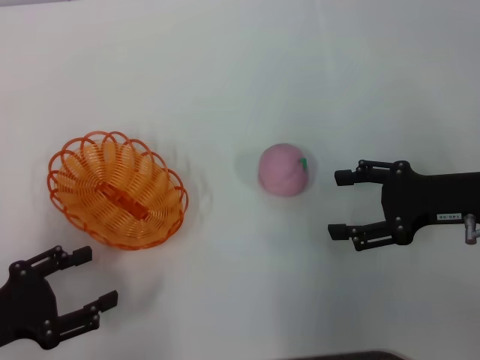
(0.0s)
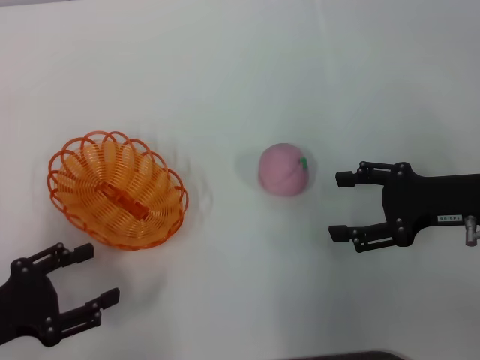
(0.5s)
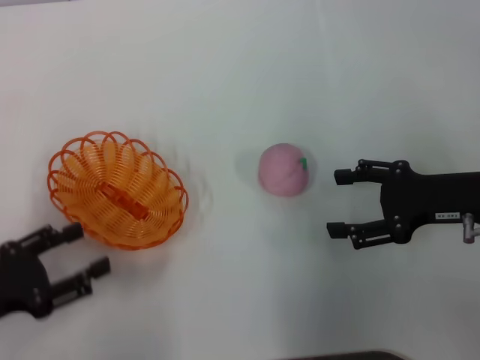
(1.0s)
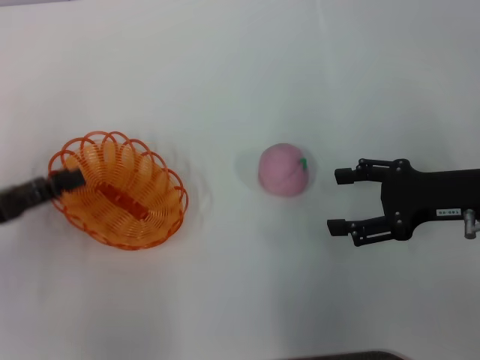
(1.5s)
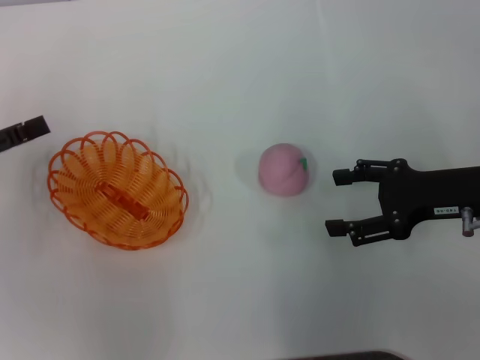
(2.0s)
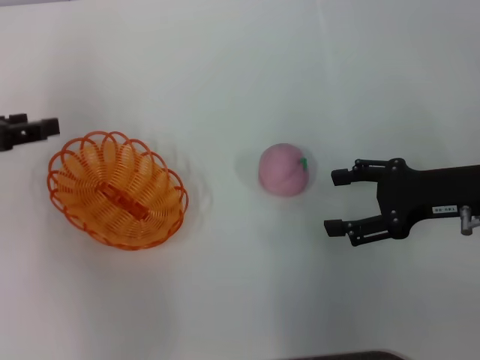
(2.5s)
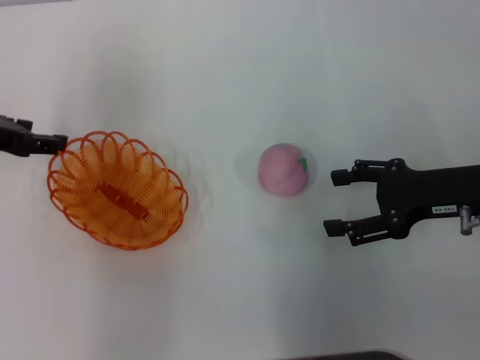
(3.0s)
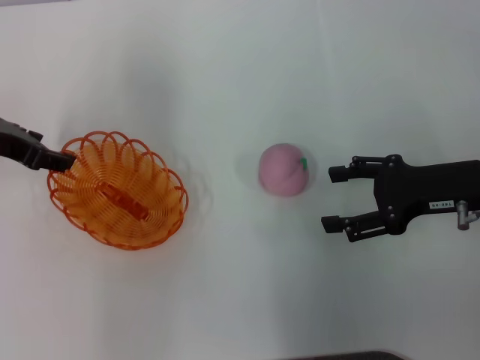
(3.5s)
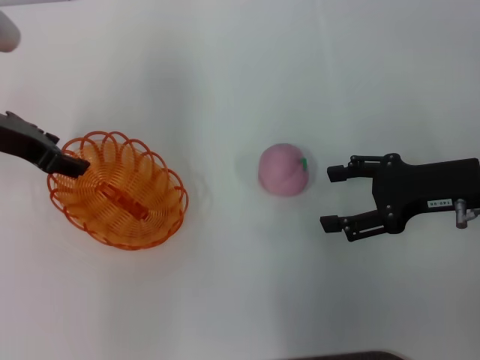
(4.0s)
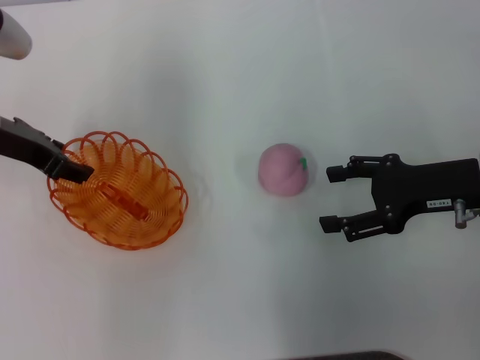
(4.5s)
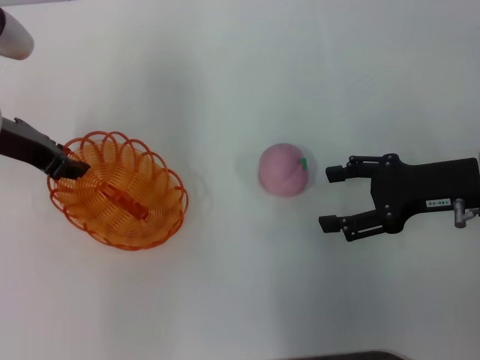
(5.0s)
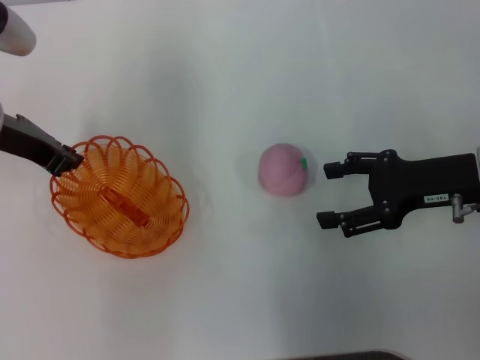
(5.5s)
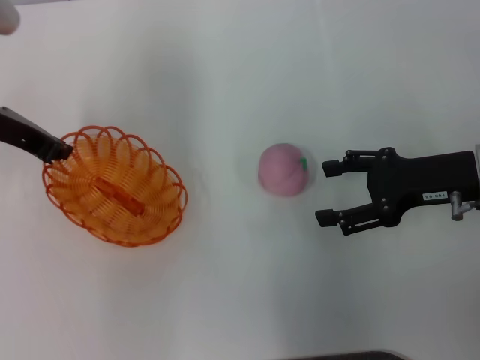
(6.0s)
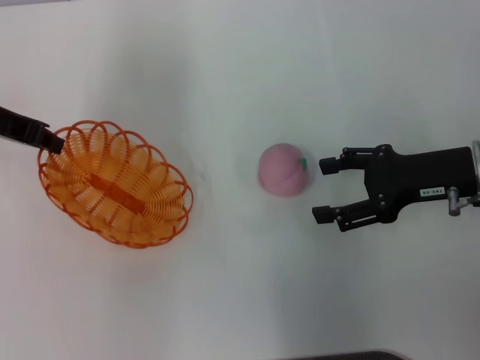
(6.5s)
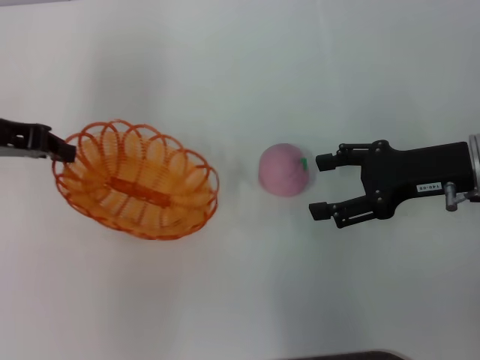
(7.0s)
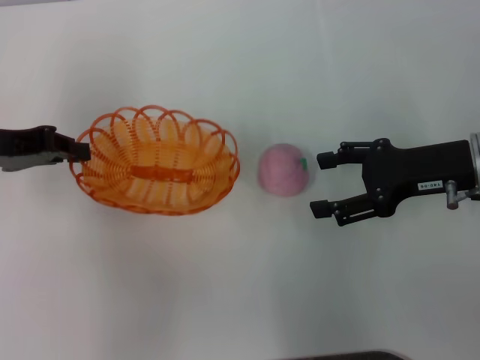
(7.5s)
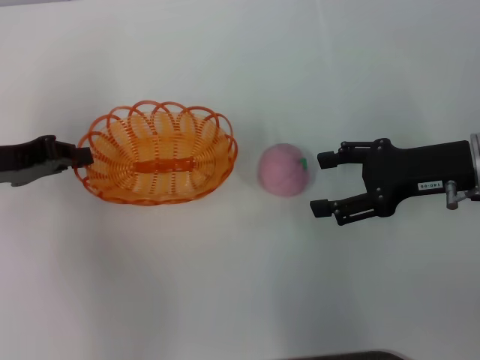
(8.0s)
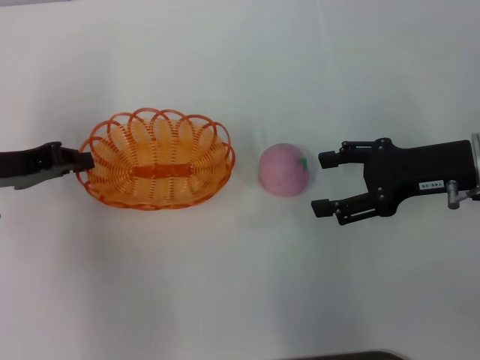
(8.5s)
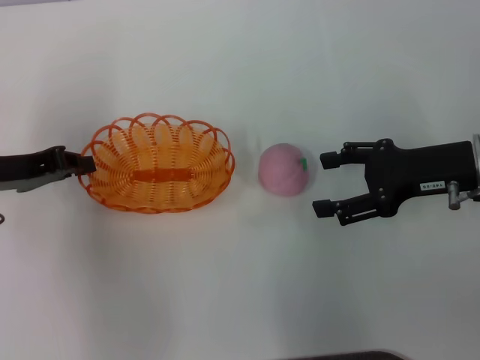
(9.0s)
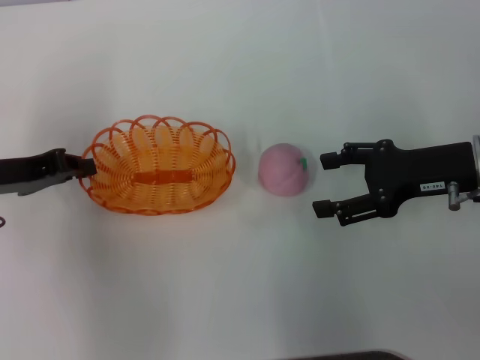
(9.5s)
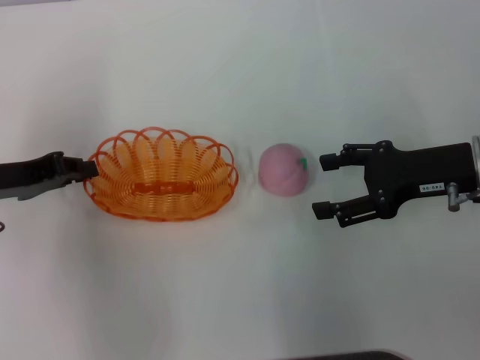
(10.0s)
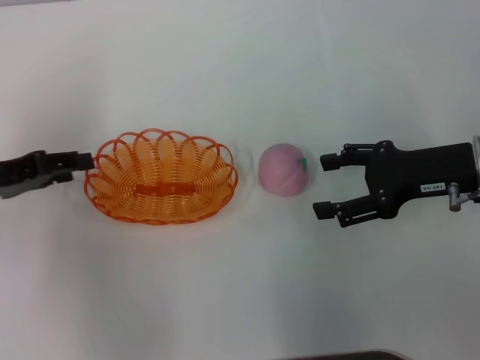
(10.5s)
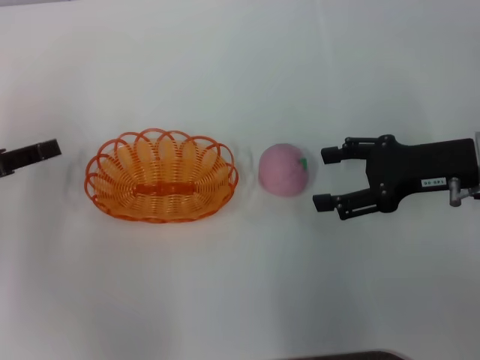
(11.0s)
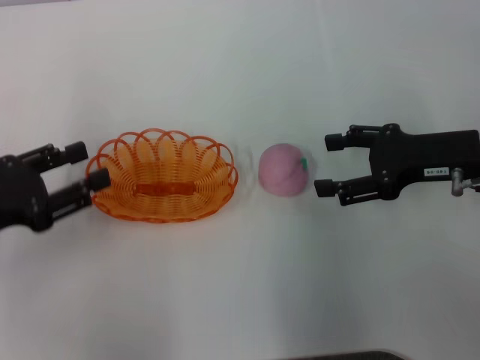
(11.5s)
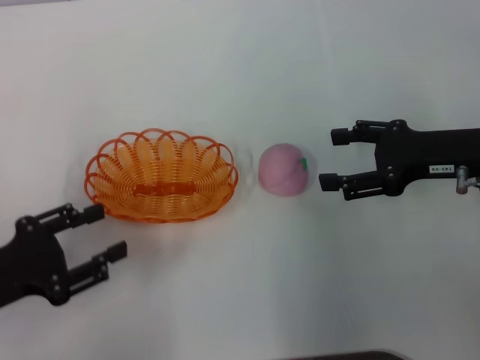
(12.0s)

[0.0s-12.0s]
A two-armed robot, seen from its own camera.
Step, 0.0s to 6.5s: Pick up the basket with the left gripper.
Step, 7.0s to 10.5s: Place the basket in the center of view with the left gripper.
0.0s to 2.0s: The left gripper travels forward and upward by approximately 10 cm.
2.0s to 4.0s: The left gripper goes some 15 cm to the right and forward.
4.0s to 6.0s: The left gripper closes up.
6.0s to 8.0s: The left gripper shifts approximately 5 cm backward.
8.0s to 10.0s: The grippers move only a little.
10.0s to 12.0s: The left gripper goes some 10 cm backward, and opens up.

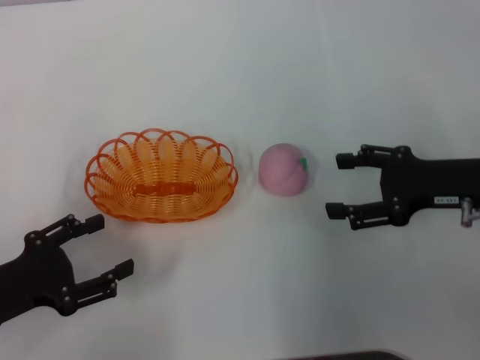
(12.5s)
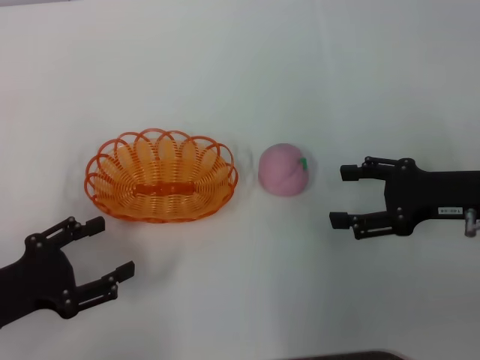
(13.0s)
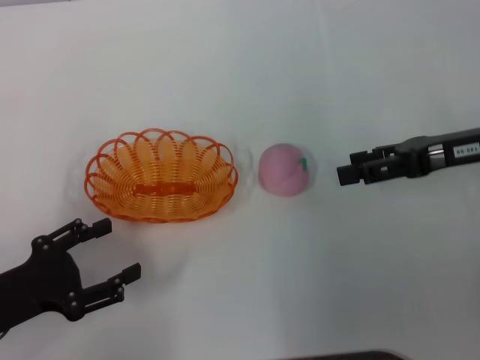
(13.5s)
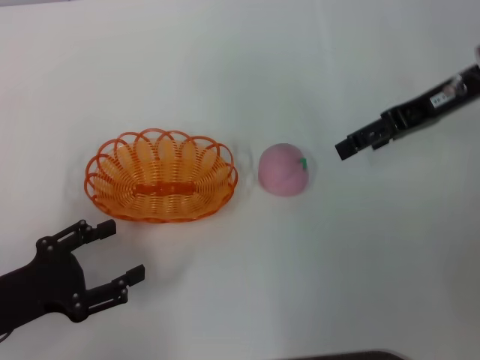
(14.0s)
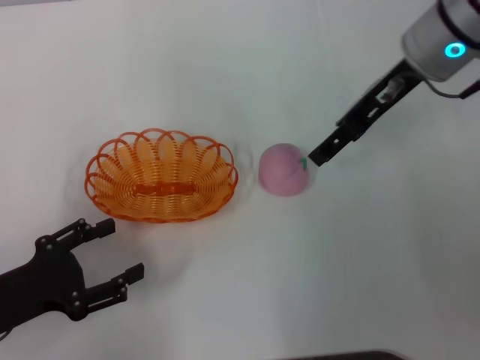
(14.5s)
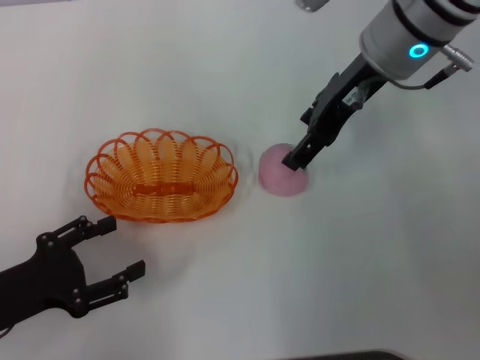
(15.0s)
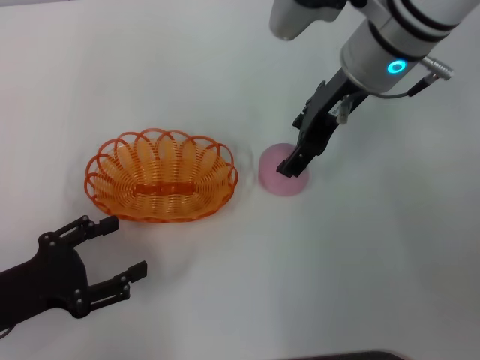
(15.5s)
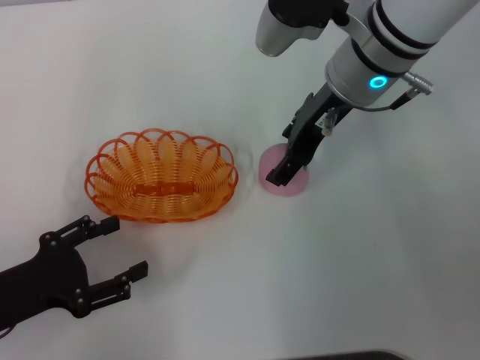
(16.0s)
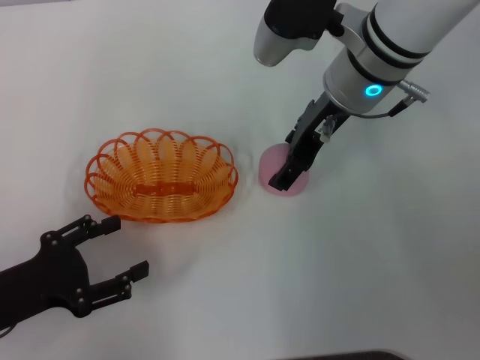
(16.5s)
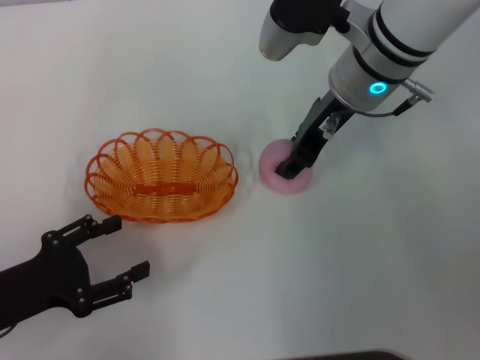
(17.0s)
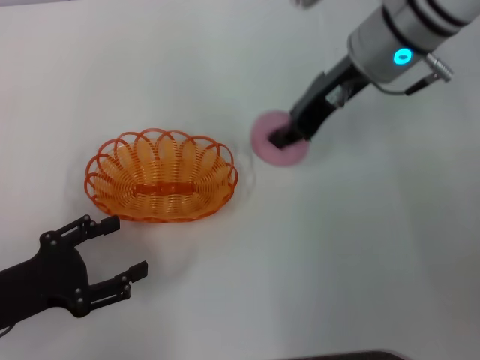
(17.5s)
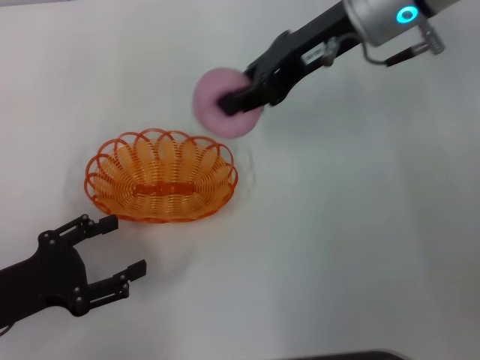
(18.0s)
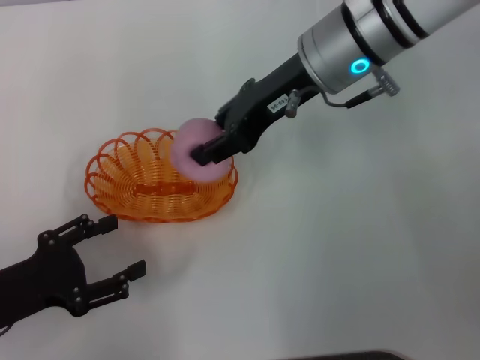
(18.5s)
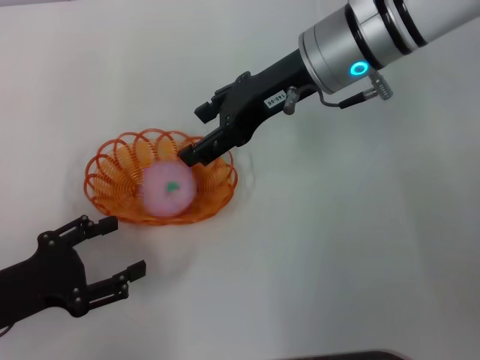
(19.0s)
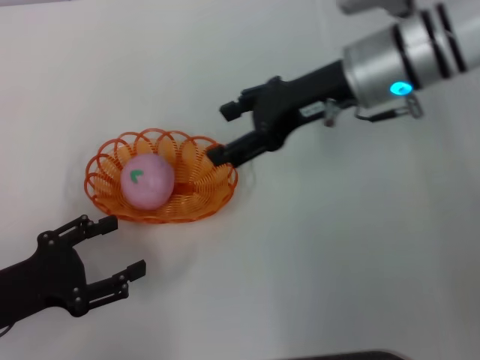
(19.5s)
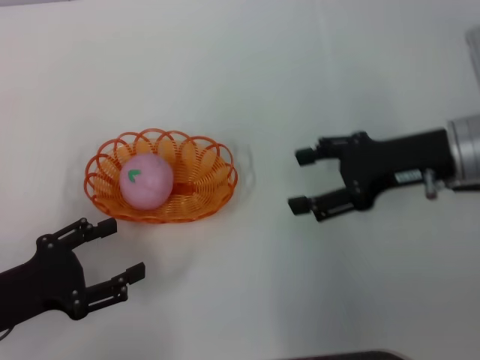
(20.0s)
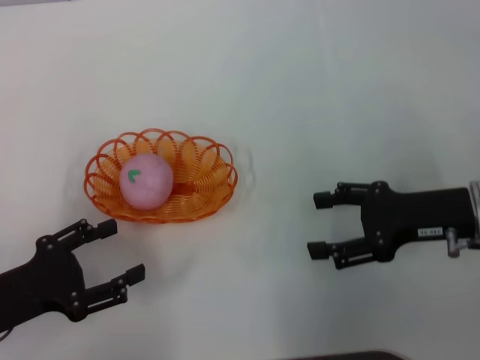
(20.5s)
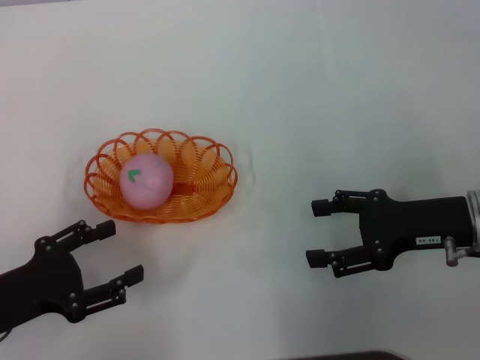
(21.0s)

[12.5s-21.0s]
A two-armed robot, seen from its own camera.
Step, 12.5s to 17.5s: Pick up the peach with the right gripper.
Step, 18.0s to 19.0s: Place the peach into the basket with the right gripper.
12.5s to 14.5s: The right gripper goes about 20 cm forward, upward and to the left.
14.5s to 16.5s: The right gripper goes about 5 cm to the left.
16.5s to 19.0s: The right gripper closes and opens again.
19.0s to 21.0s: The right gripper travels to the right, backward and downward by approximately 25 cm, and opens up.

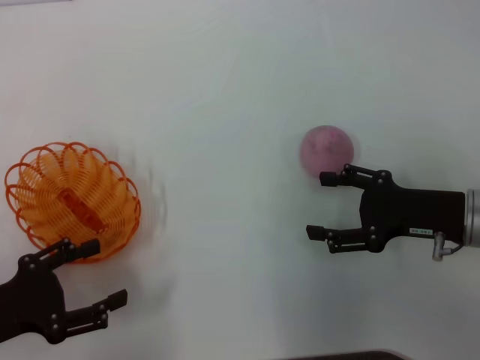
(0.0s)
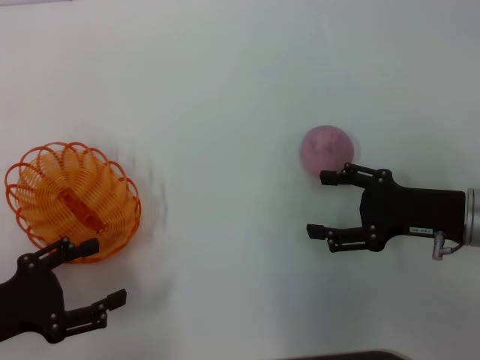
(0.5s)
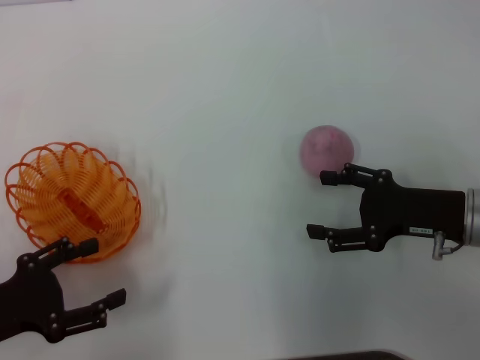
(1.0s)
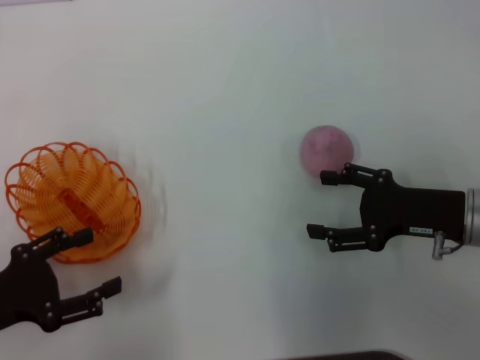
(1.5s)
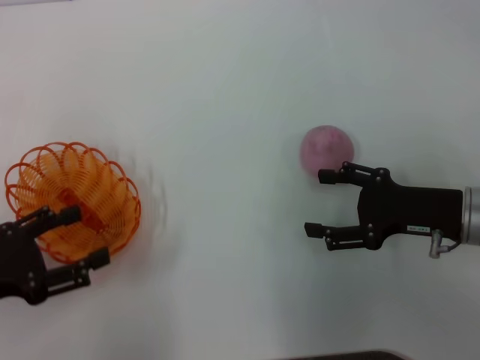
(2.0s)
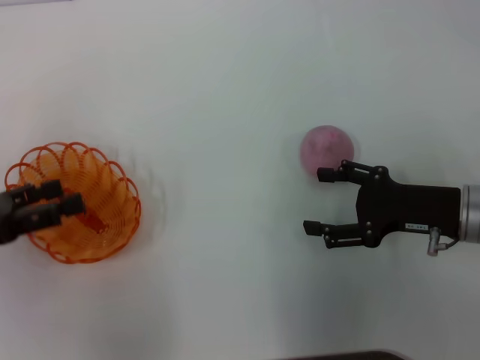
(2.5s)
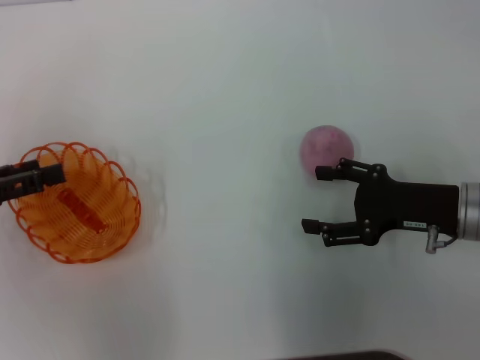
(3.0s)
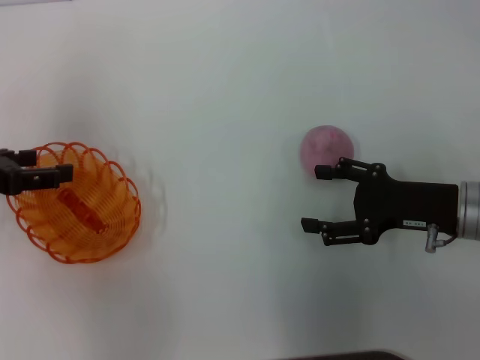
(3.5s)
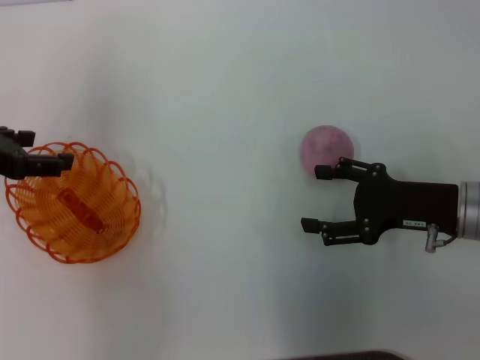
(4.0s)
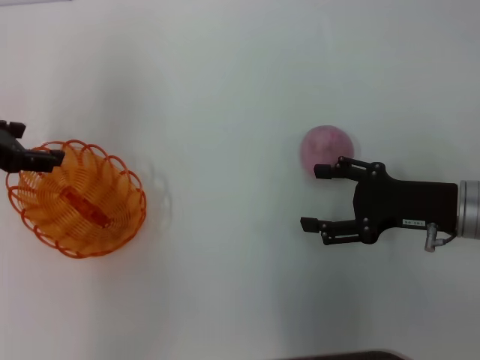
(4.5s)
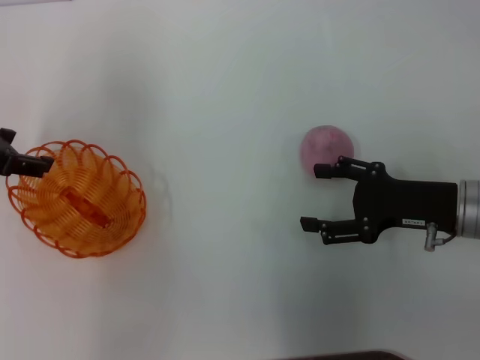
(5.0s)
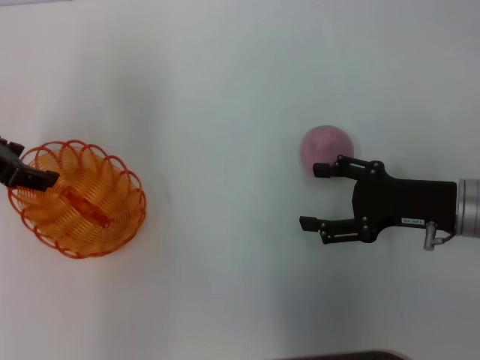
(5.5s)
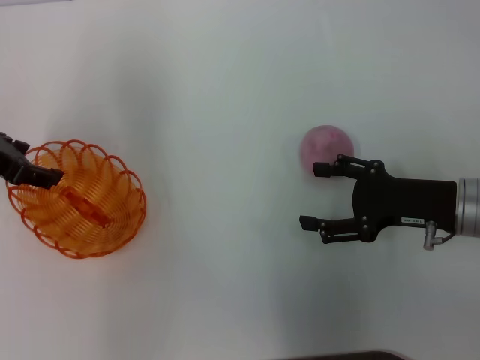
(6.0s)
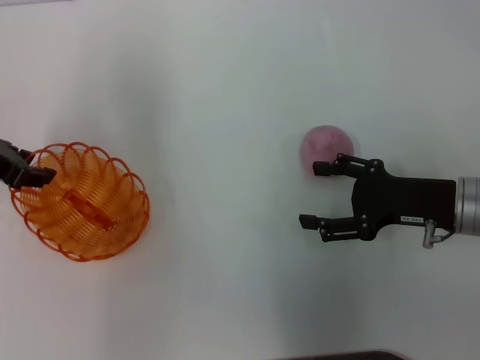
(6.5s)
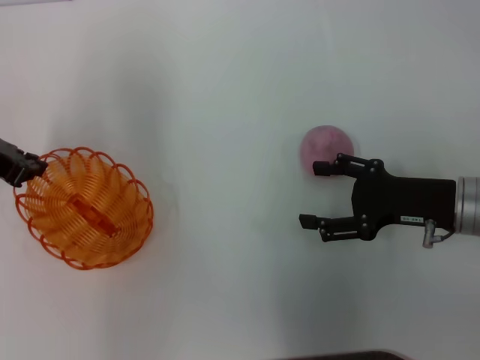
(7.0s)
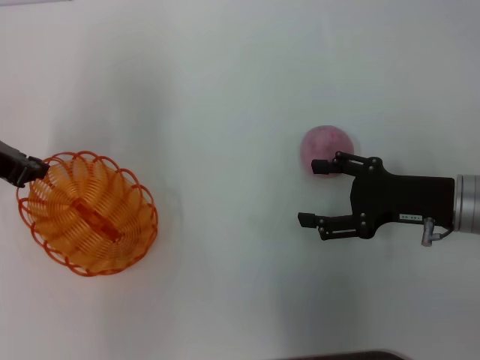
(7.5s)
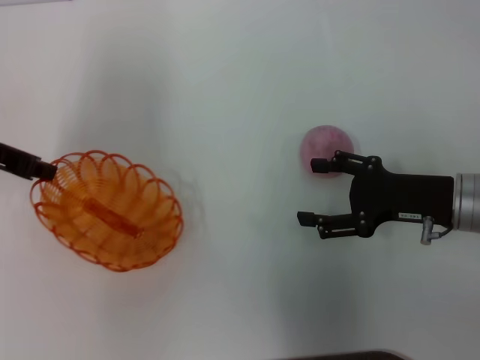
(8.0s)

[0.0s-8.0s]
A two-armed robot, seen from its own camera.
0.0s to 2.0s: The grippers make only small movements.
2.0s to 4.0s: The left gripper travels forward and upward by some 15 cm.
4.0s to 6.0s: The grippers make only small movements.
6.0s to 8.0s: The left gripper closes up.
